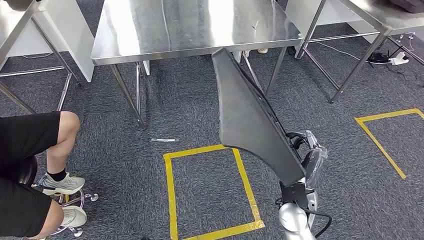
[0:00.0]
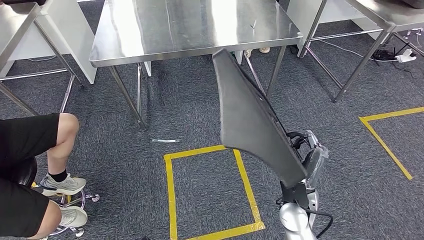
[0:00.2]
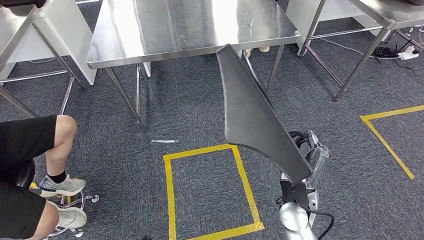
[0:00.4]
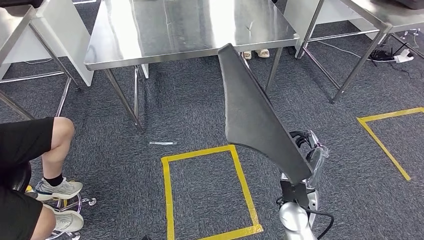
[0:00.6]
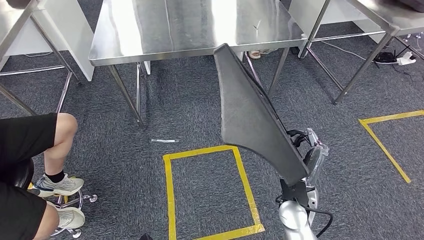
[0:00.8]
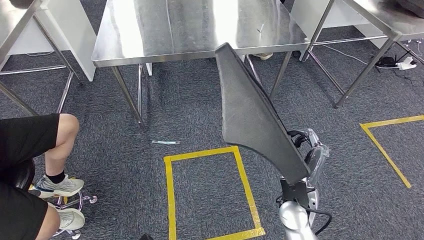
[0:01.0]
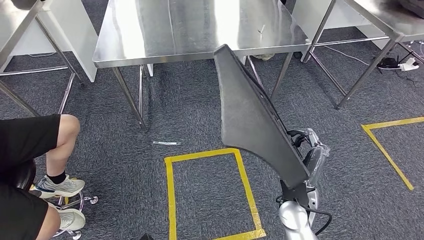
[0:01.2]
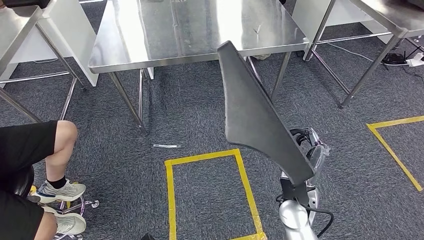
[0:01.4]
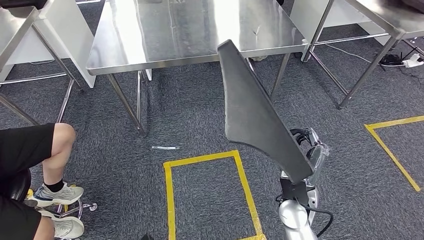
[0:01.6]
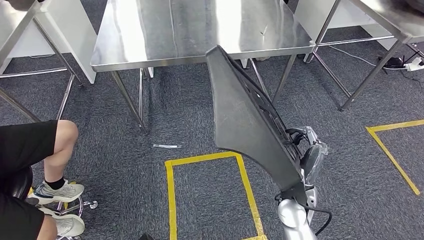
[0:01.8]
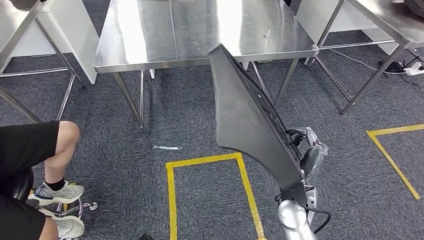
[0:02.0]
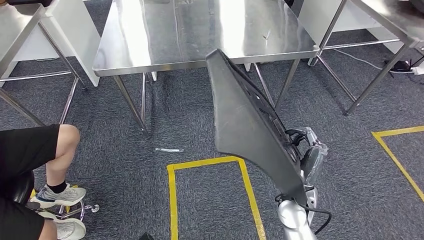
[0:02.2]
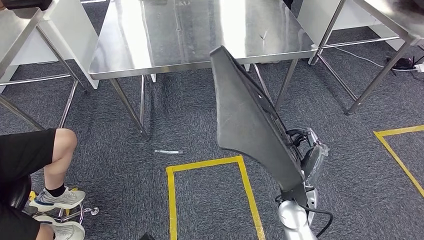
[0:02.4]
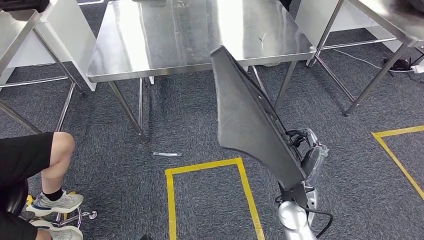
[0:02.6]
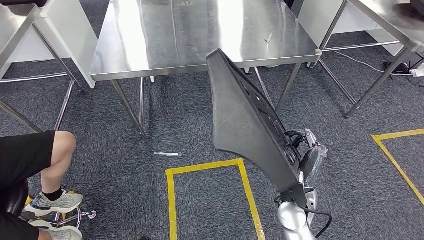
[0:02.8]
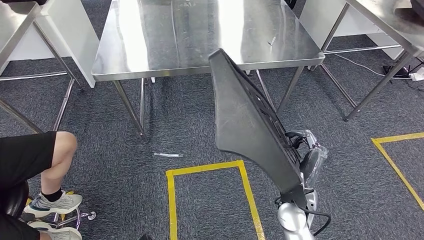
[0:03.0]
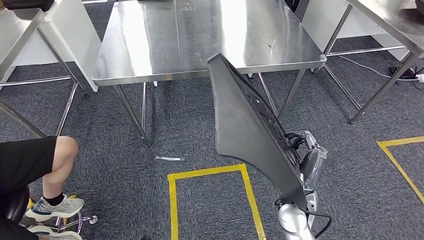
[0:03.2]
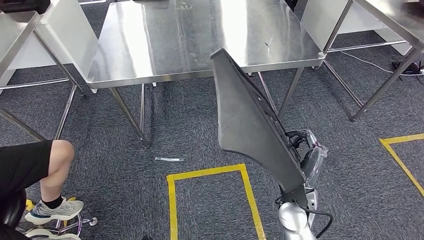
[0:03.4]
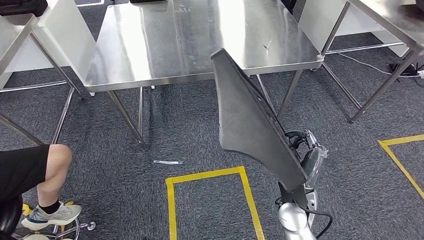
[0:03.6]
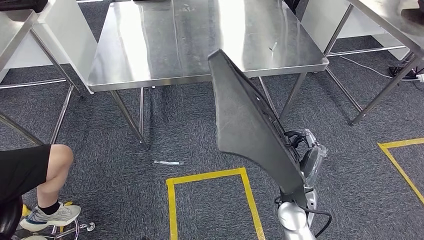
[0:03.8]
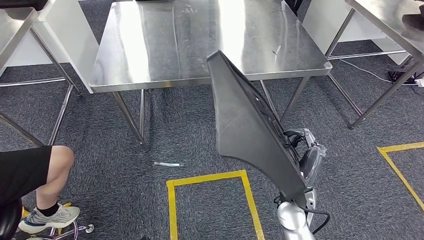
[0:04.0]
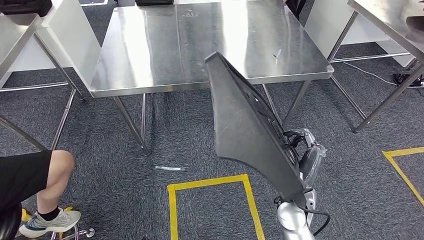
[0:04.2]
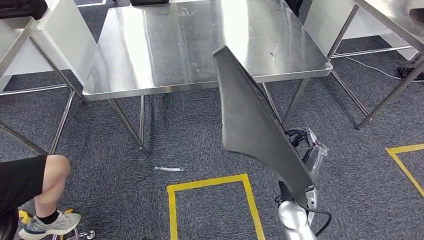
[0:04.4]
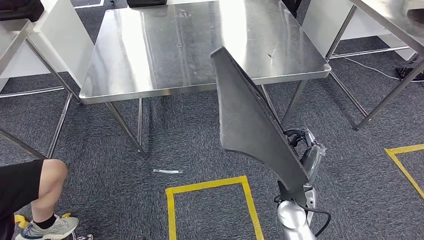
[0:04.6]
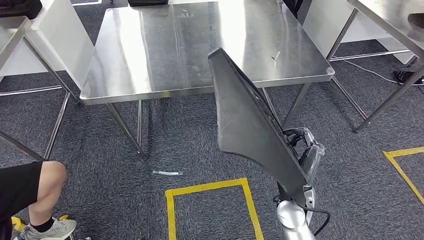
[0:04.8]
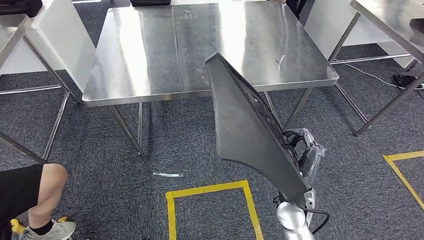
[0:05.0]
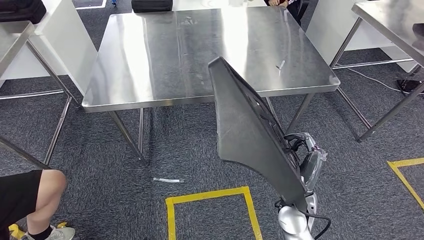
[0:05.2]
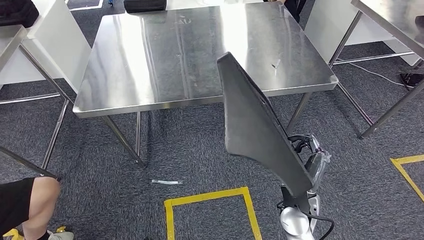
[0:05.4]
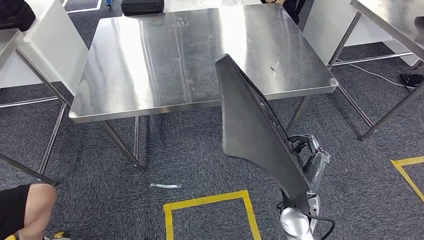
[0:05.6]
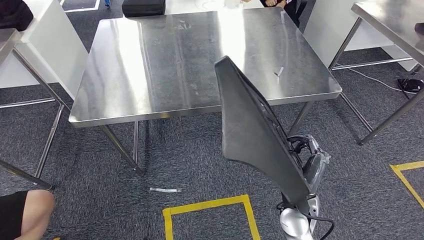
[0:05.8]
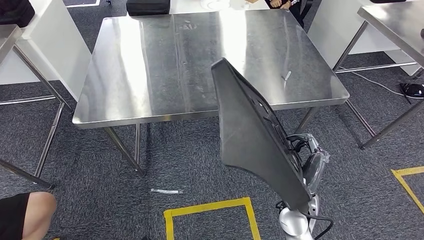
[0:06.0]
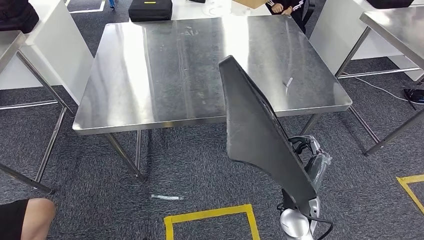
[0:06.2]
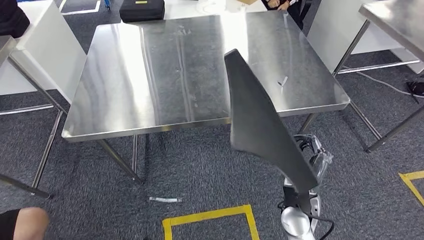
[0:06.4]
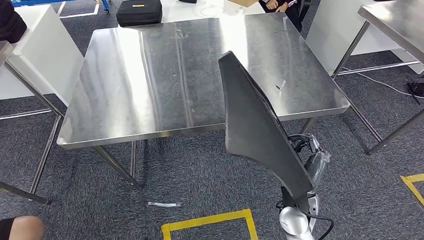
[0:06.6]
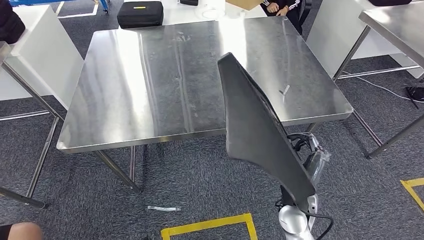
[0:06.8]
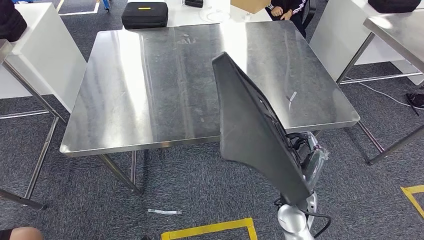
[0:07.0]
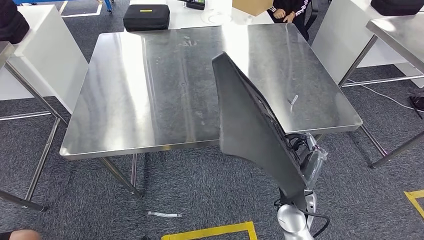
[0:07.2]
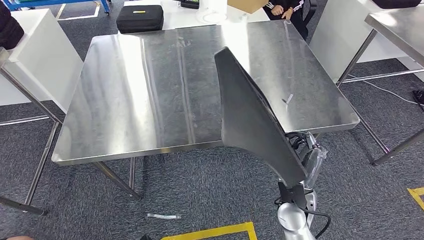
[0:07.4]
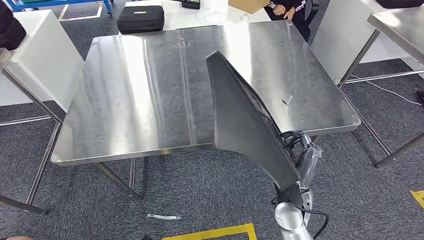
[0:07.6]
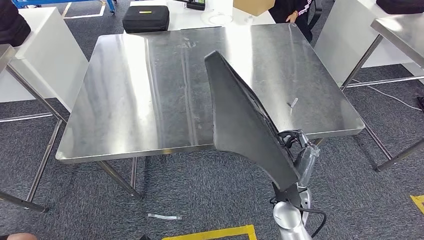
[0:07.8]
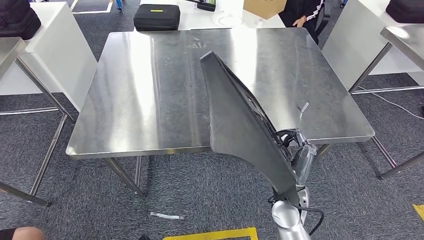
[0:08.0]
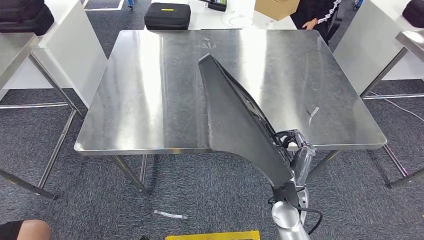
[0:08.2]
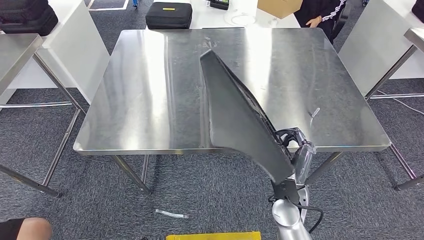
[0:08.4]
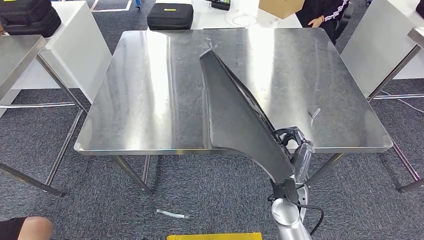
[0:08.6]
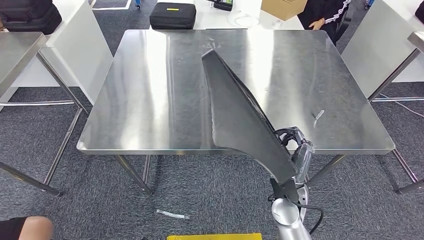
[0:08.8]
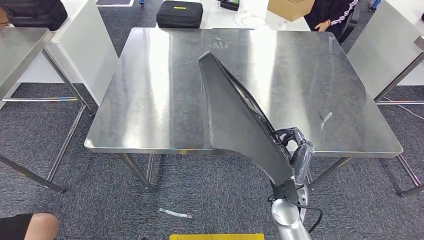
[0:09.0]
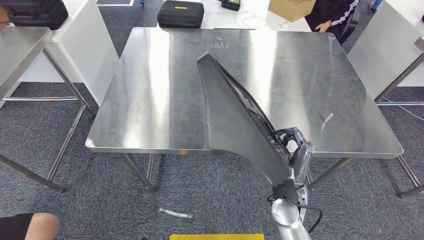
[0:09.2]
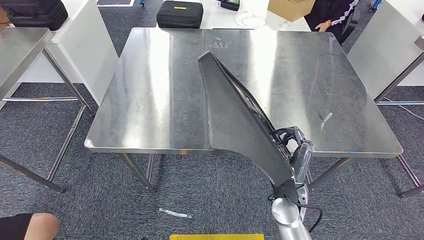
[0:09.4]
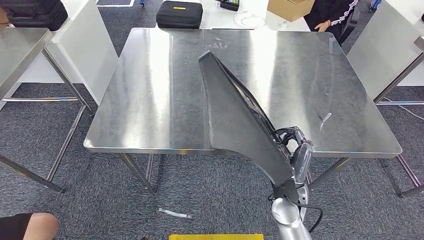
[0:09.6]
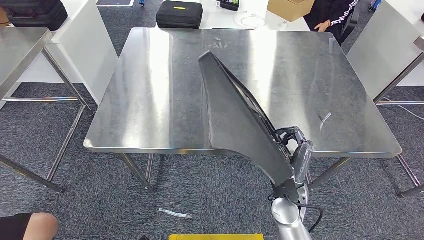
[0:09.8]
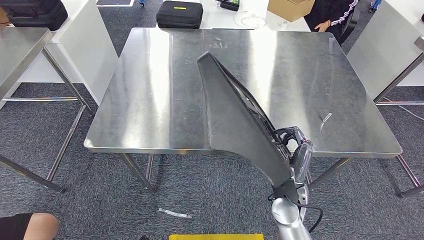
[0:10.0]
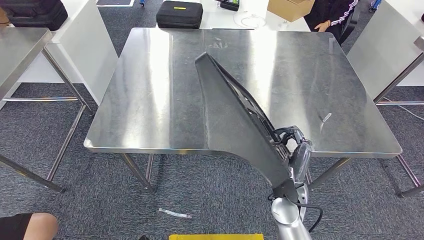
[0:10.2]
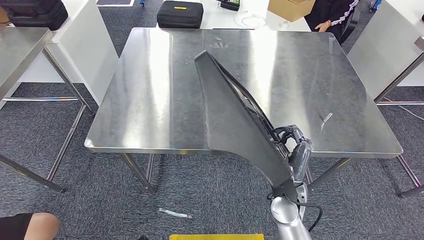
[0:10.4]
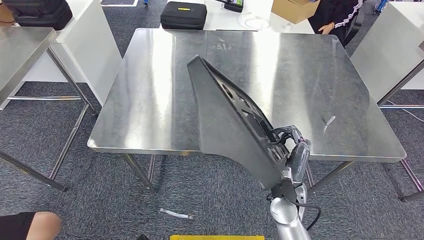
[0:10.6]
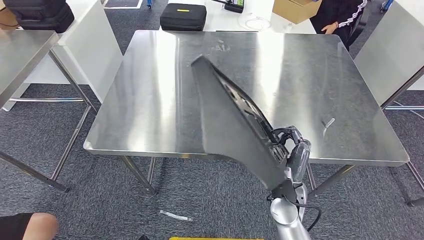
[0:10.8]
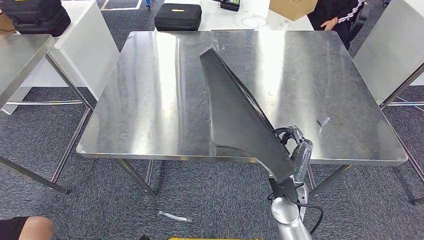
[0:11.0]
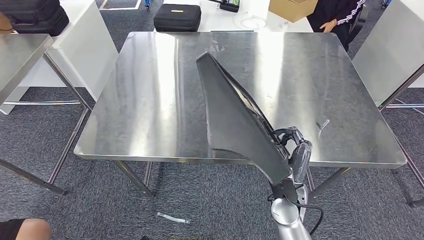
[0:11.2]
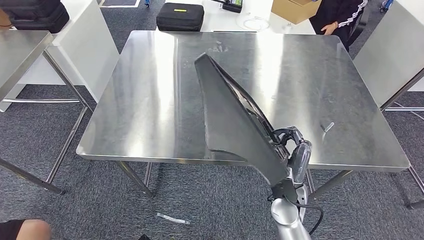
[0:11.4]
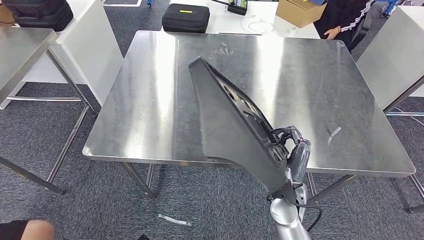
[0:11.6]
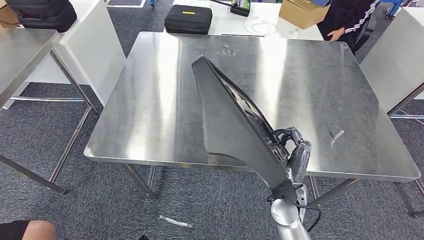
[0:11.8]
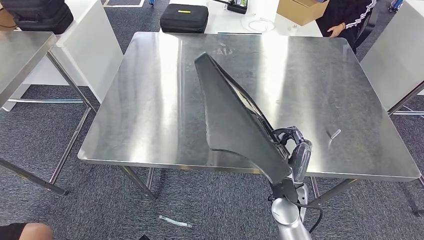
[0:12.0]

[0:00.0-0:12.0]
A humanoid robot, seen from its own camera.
0:09.0 to 0:10.4: The two hands keep their place.

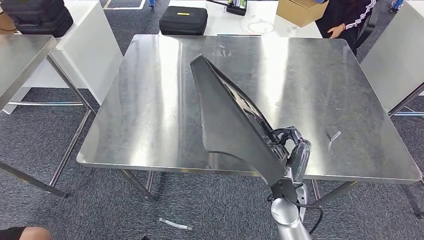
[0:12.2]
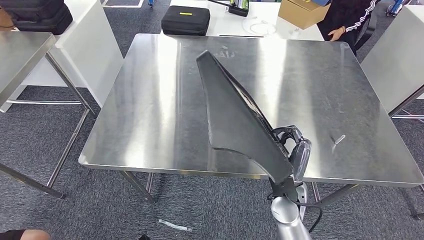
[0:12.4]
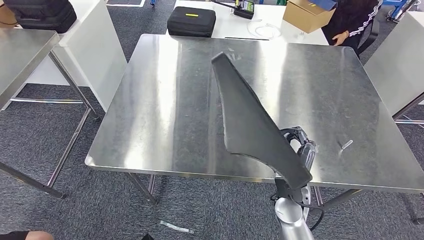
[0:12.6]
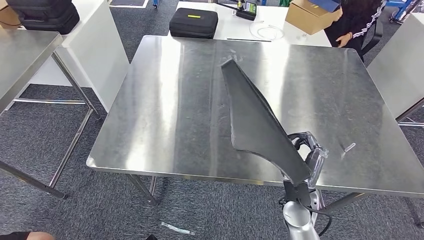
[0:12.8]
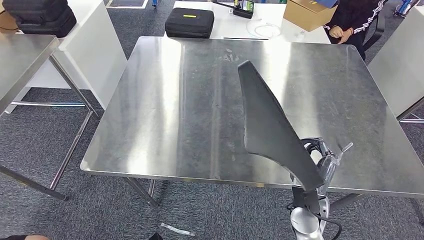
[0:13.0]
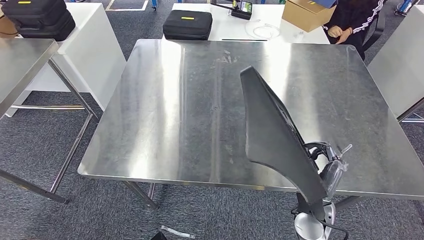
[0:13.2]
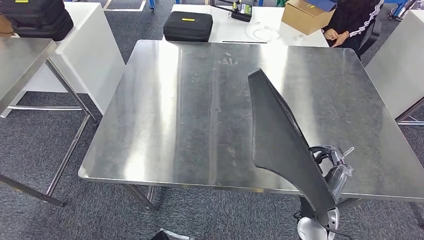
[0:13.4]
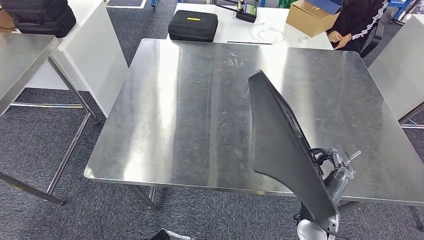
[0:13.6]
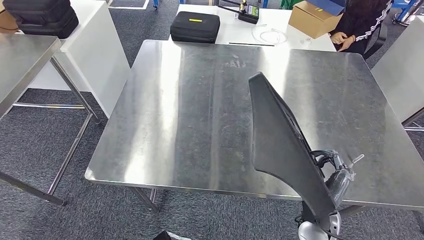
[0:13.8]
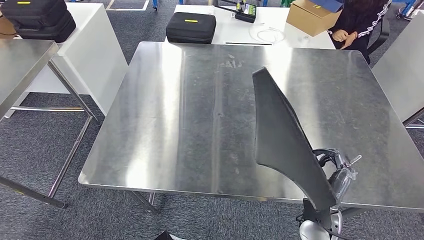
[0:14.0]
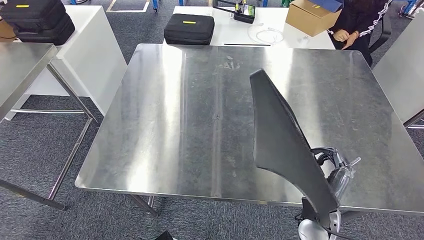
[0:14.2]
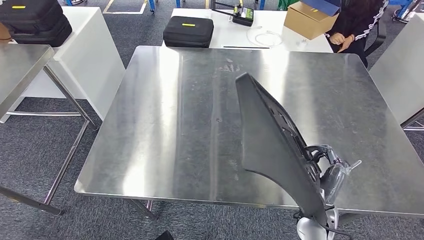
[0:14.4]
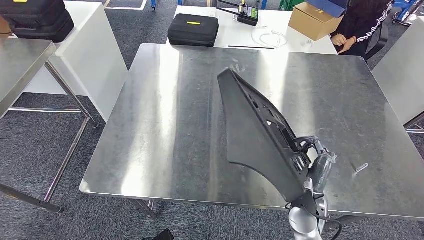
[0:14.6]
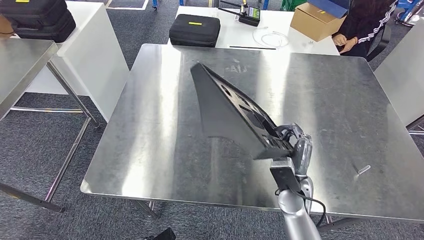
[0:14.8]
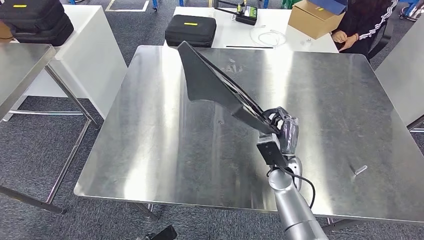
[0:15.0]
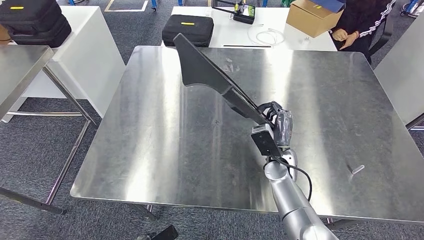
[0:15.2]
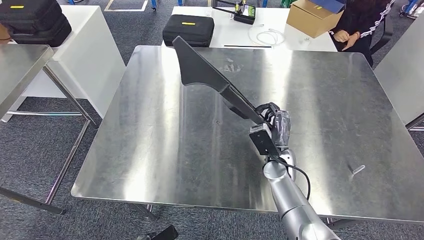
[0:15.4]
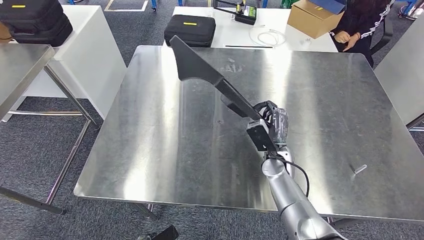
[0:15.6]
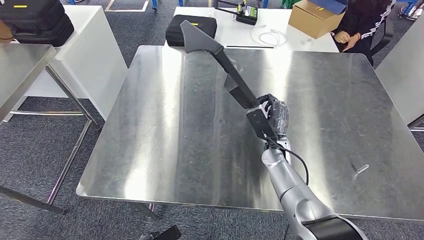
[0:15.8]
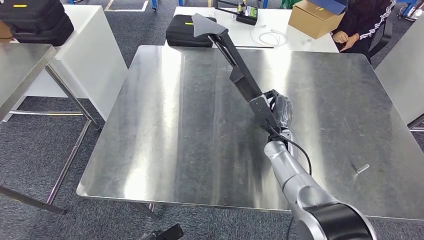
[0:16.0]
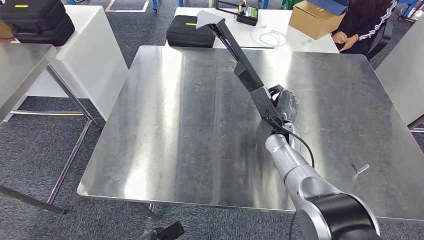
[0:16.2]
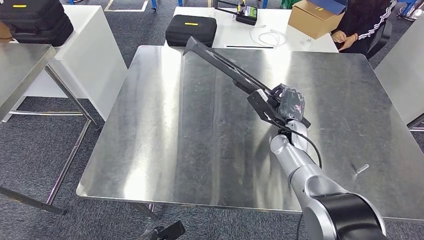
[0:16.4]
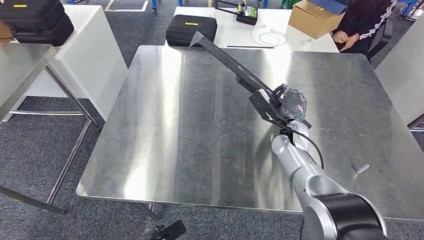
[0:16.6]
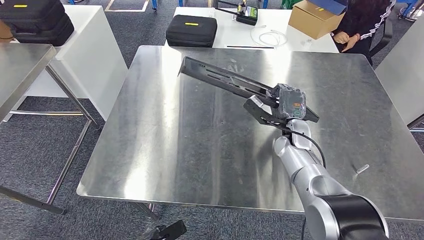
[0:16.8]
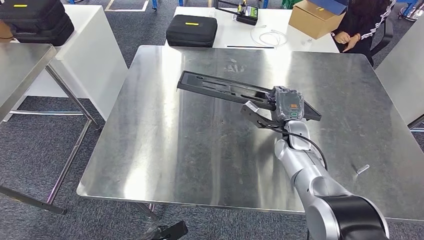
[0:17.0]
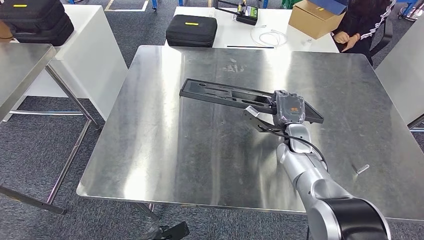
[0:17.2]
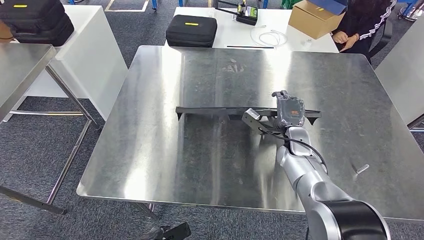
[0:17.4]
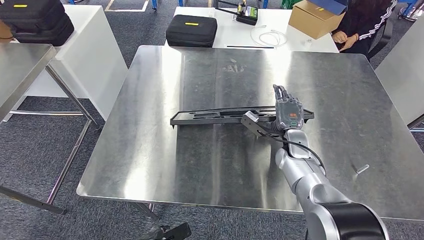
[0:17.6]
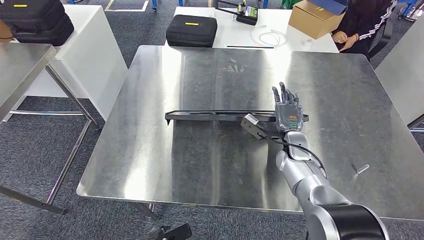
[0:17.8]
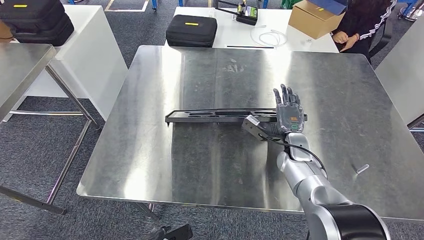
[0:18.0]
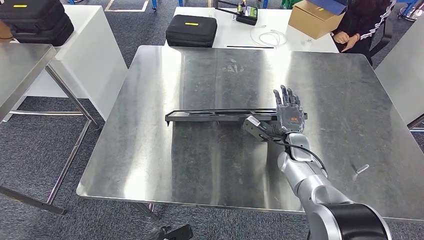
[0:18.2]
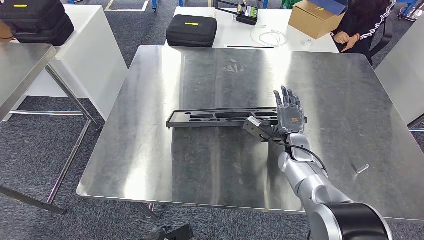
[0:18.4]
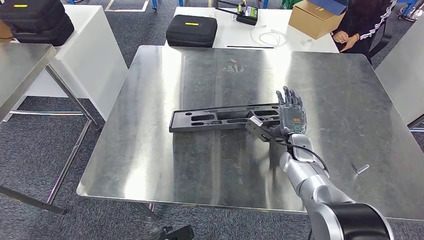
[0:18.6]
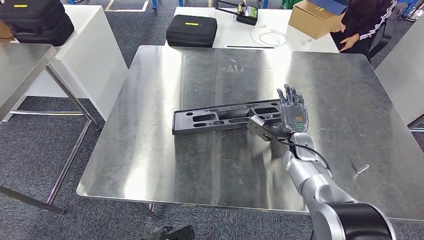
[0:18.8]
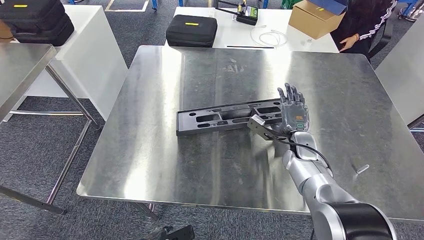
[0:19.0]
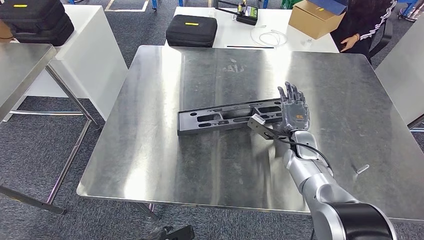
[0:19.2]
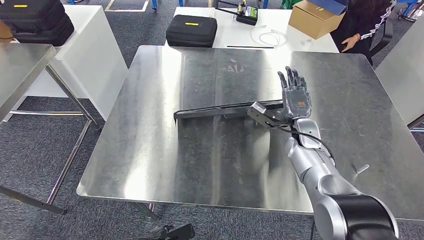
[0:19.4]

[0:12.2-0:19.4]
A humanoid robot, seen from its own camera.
0:15.0 to 0:16.6: The right hand heads forward, covering roughly 10 cm.
0:18.0 to 0:19.4: There are only small adjustments of the hands.
